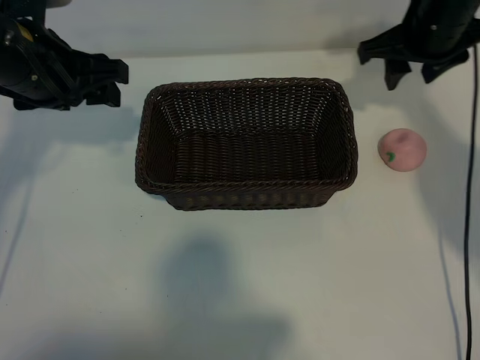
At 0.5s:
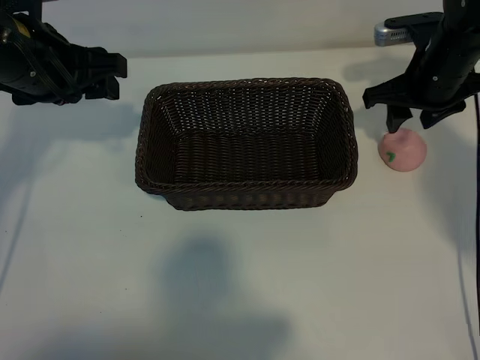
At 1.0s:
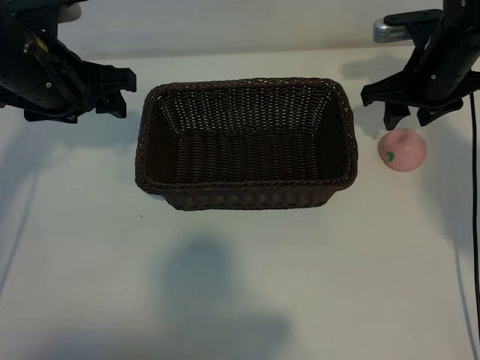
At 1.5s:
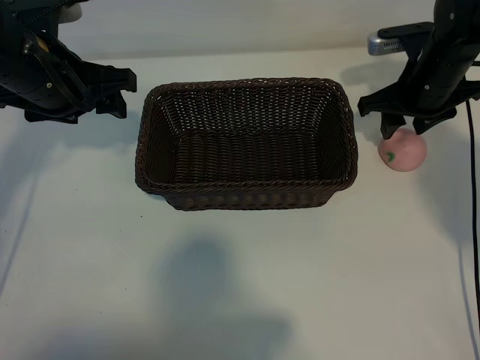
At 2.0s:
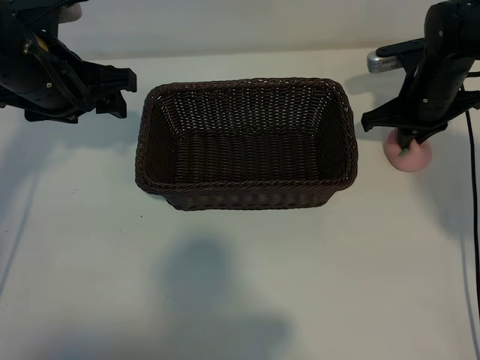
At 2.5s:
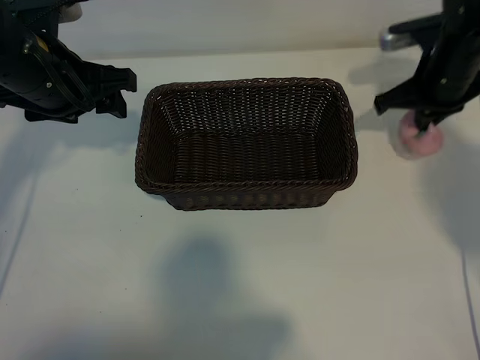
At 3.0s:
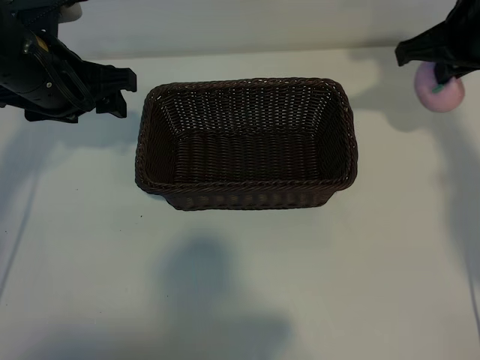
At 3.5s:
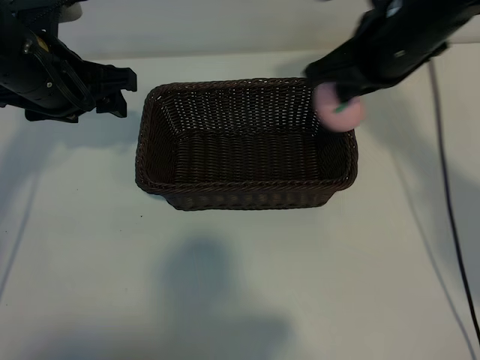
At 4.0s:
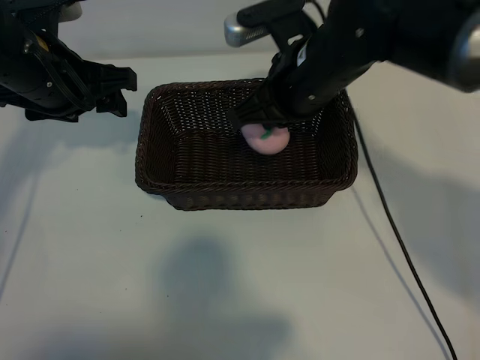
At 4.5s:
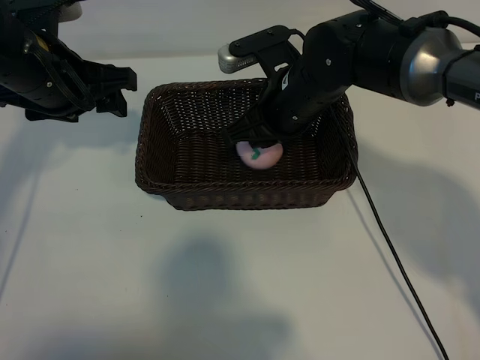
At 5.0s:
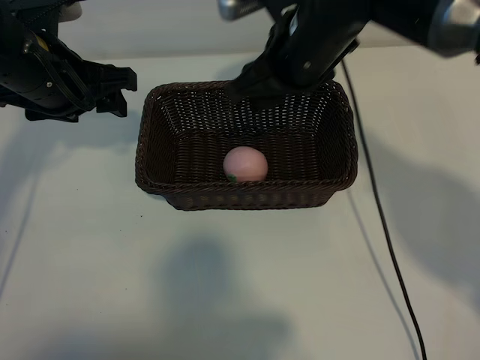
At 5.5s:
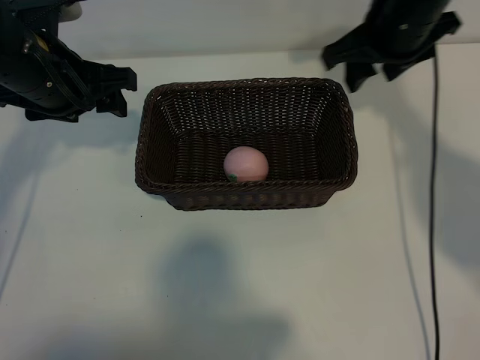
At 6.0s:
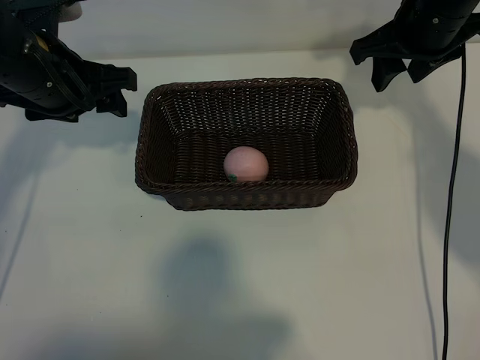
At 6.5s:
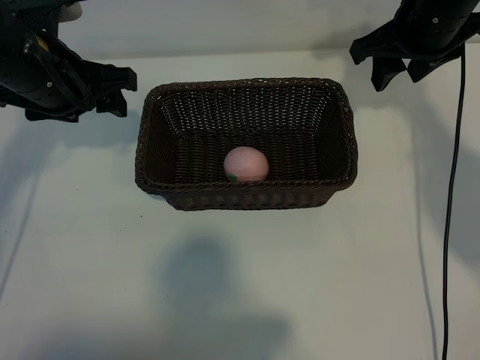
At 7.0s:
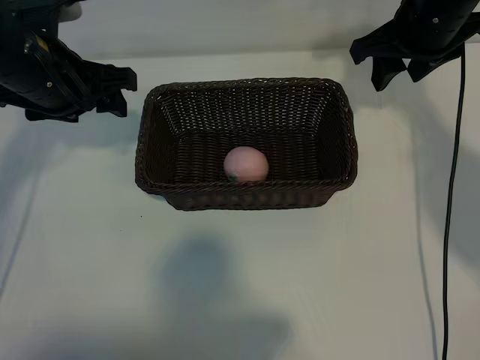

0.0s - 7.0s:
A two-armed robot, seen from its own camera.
Task of the whole recording: pick up the peach and put it into the basket.
Step, 0.0s - 2.0s: Grasp the peach with right gripper.
Step, 2.5s - 4.5s: Place the peach in the basket with right gripper.

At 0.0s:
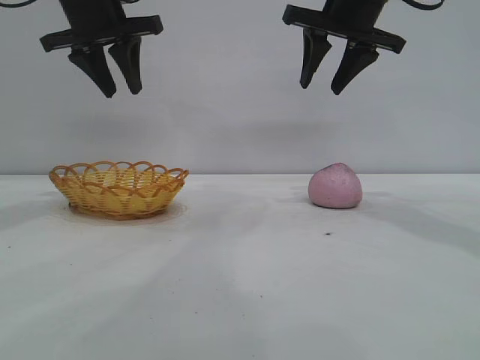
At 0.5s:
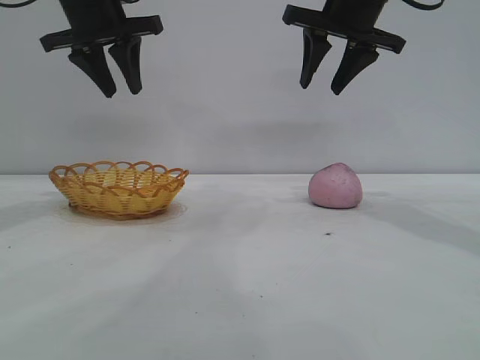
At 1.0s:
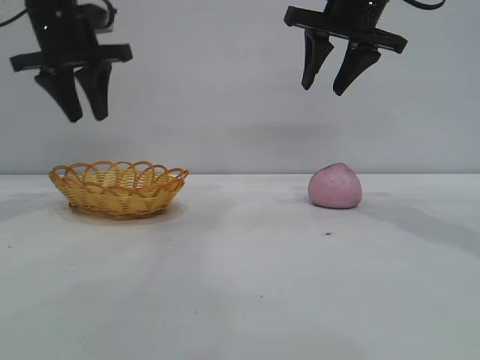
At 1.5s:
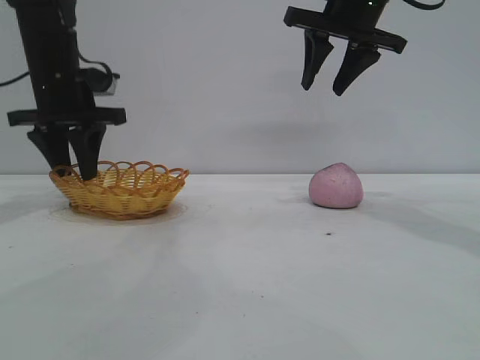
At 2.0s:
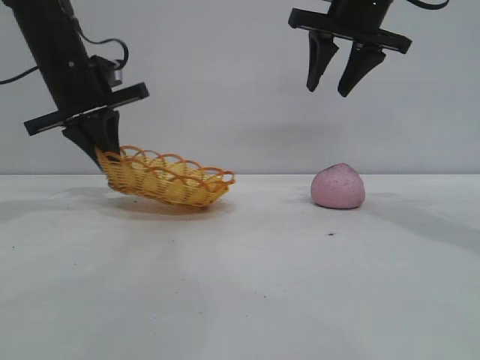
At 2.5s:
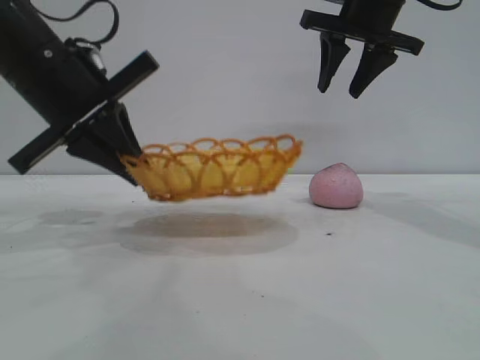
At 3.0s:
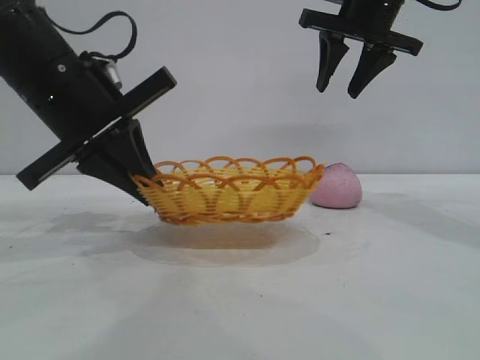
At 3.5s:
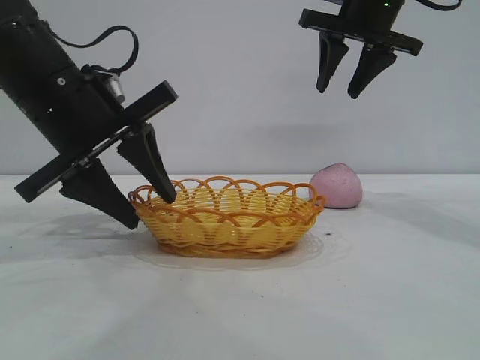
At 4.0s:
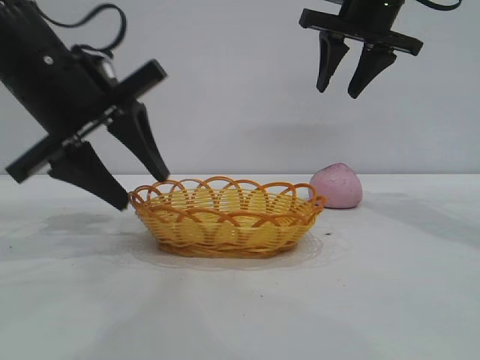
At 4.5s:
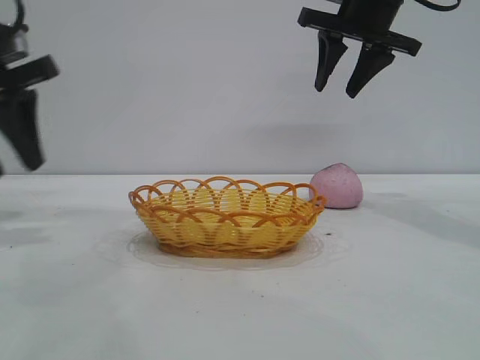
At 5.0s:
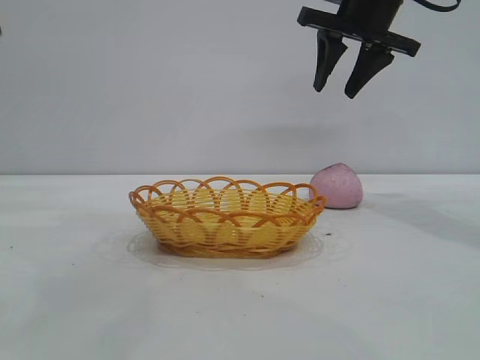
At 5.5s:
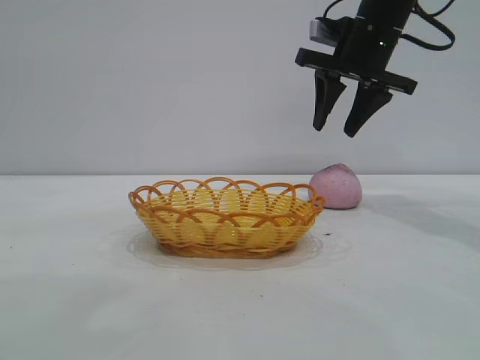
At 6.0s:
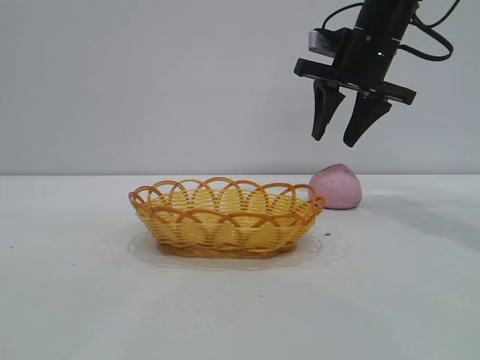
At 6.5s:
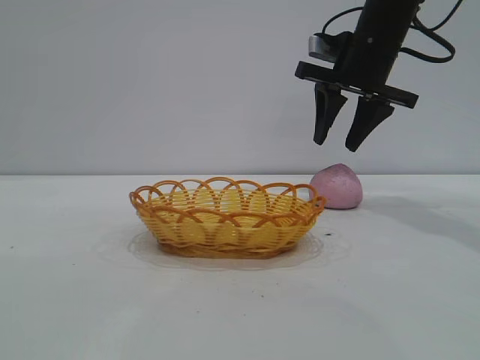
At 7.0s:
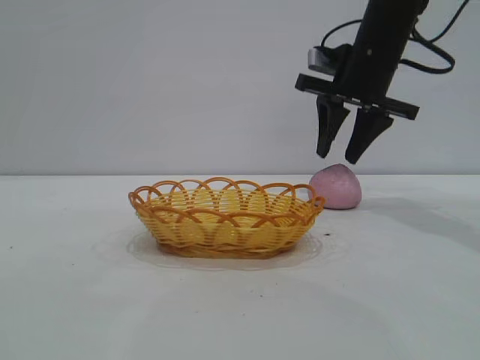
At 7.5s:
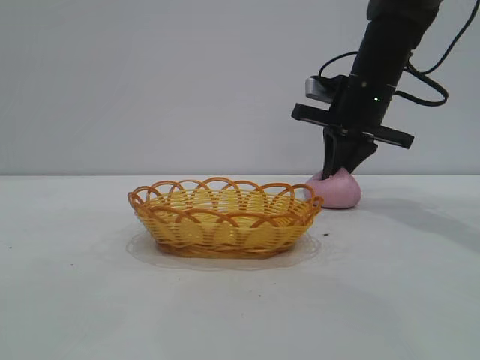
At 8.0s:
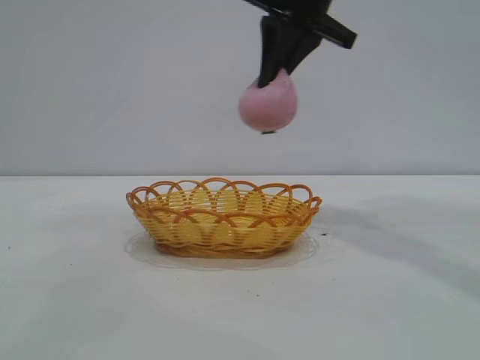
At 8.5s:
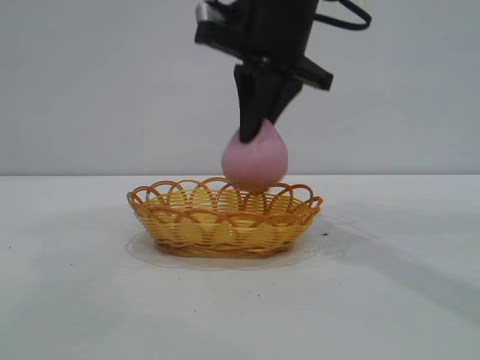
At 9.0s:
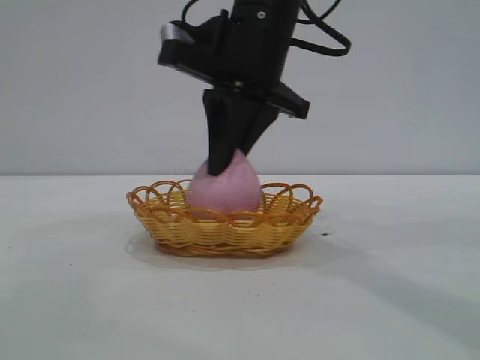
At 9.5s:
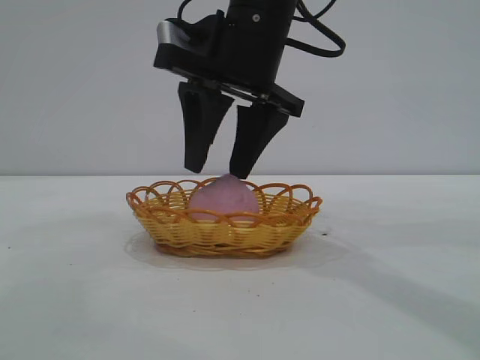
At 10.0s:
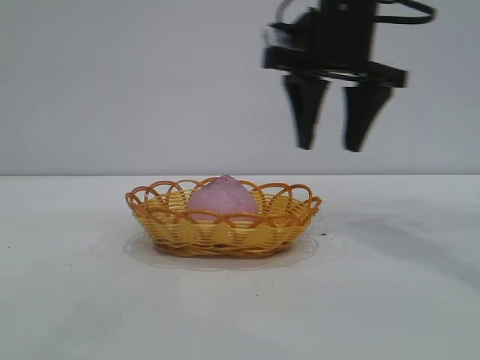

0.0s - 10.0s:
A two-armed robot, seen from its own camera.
Task of the whole recording: pick up the peach and put it into the basket.
Step, 0.0s - 4.0s: Move the basket to the center of view.
Step, 4.5s - 7.5s: Pick up the peach.
Step, 8.0s - 9.5s: place the peach into the basket.
